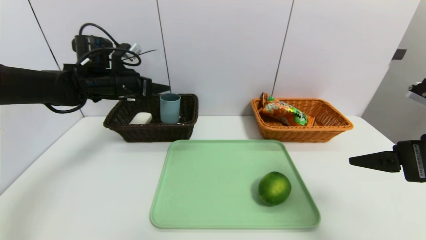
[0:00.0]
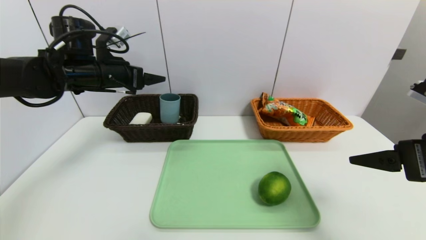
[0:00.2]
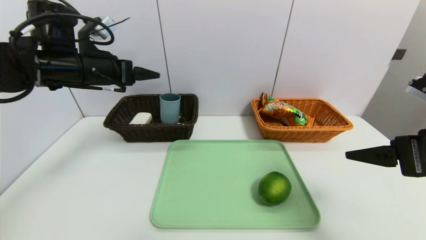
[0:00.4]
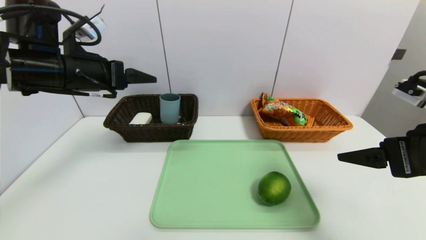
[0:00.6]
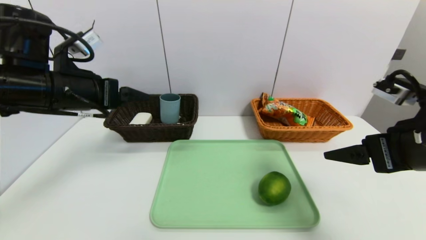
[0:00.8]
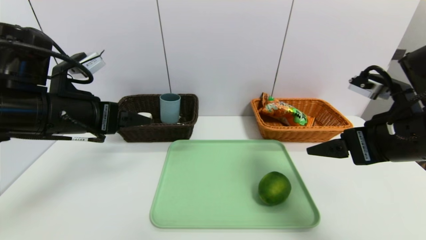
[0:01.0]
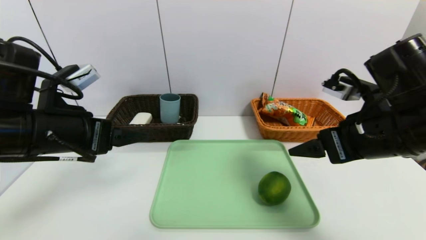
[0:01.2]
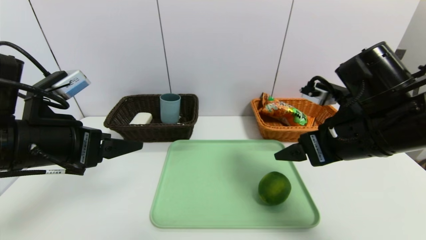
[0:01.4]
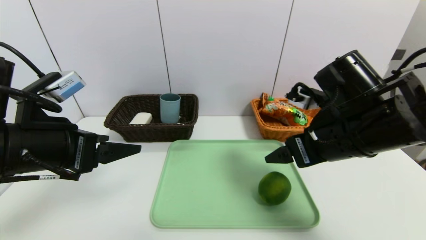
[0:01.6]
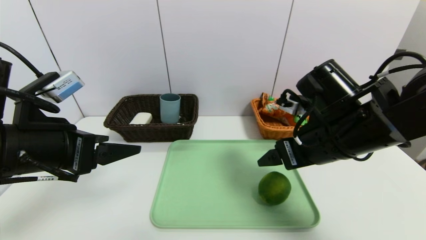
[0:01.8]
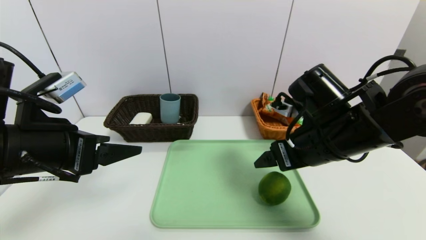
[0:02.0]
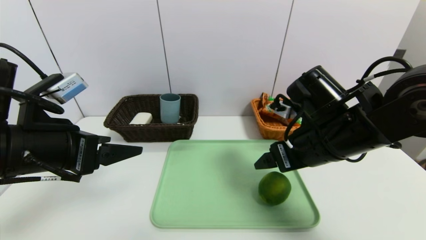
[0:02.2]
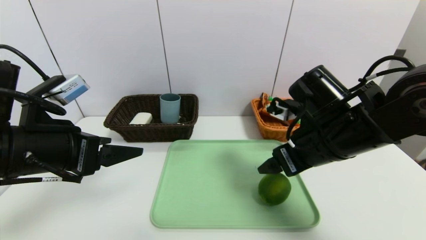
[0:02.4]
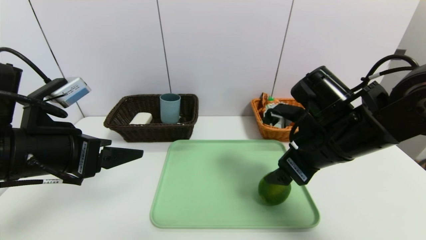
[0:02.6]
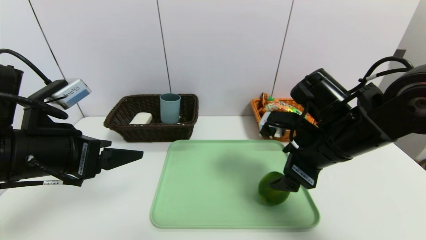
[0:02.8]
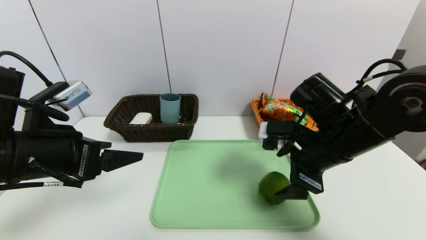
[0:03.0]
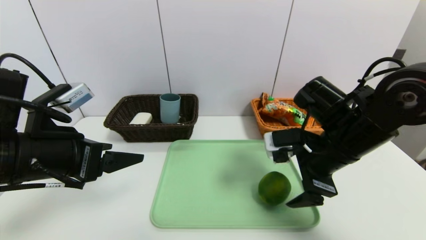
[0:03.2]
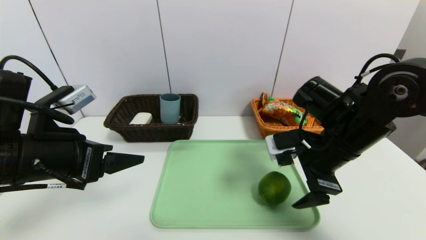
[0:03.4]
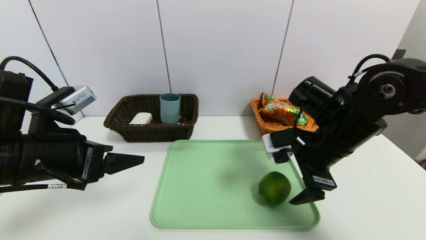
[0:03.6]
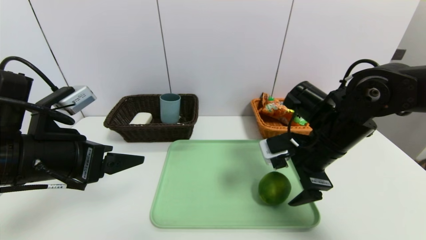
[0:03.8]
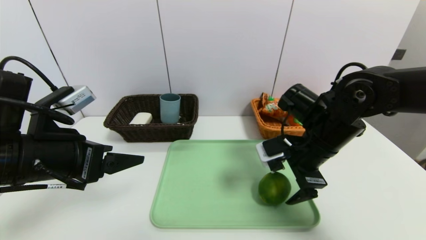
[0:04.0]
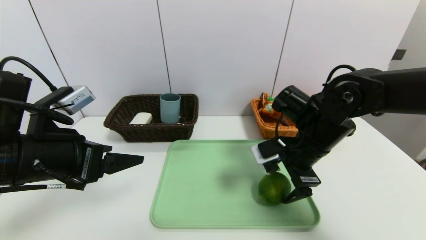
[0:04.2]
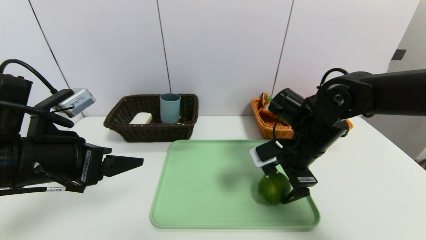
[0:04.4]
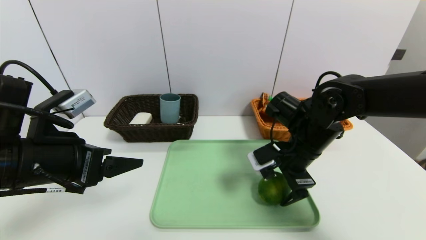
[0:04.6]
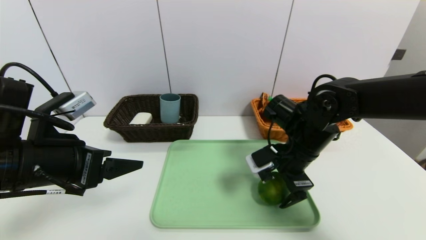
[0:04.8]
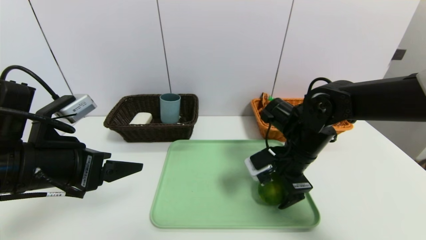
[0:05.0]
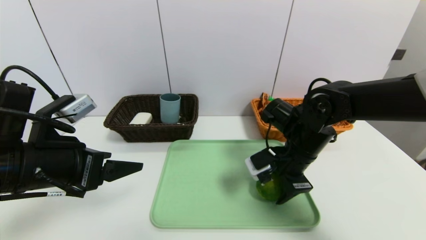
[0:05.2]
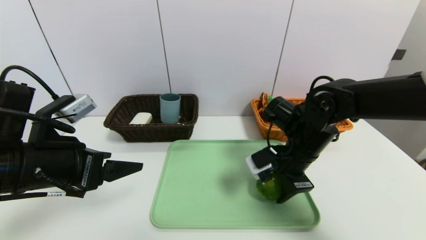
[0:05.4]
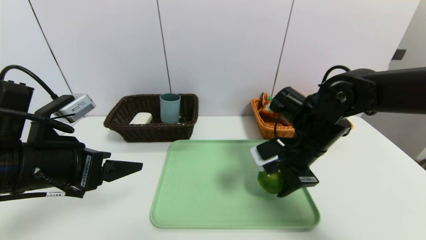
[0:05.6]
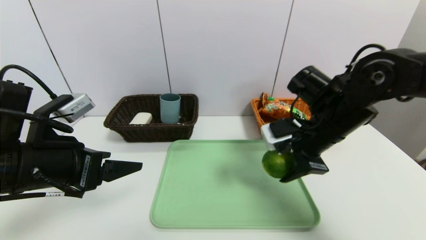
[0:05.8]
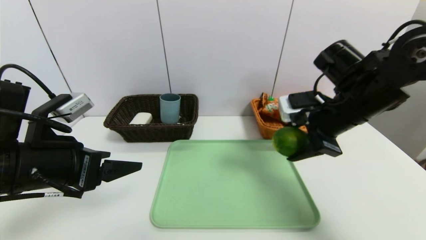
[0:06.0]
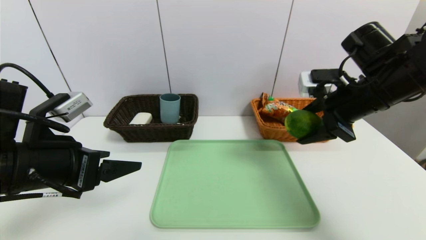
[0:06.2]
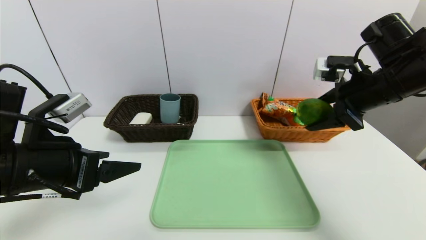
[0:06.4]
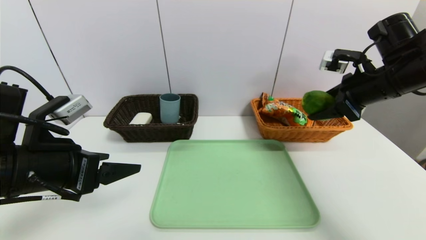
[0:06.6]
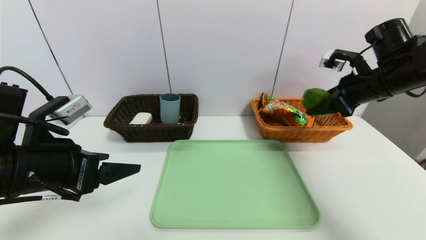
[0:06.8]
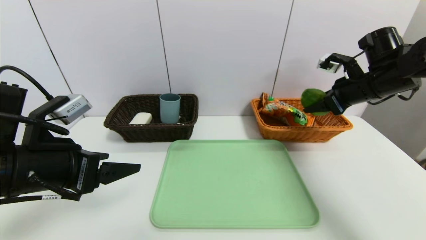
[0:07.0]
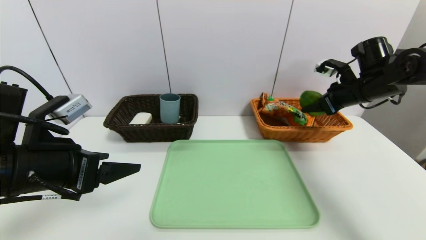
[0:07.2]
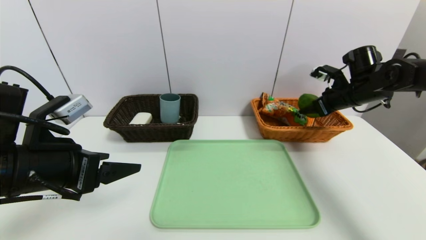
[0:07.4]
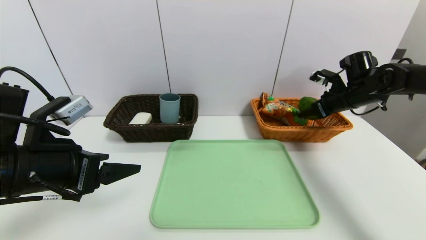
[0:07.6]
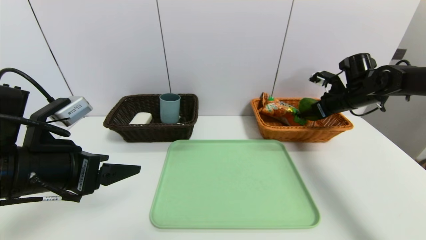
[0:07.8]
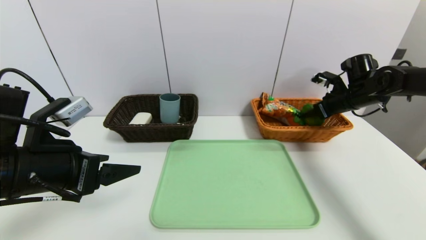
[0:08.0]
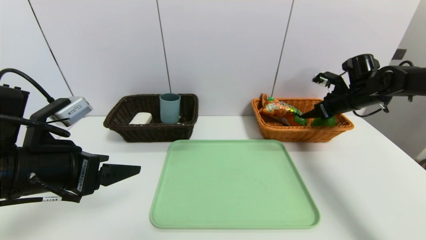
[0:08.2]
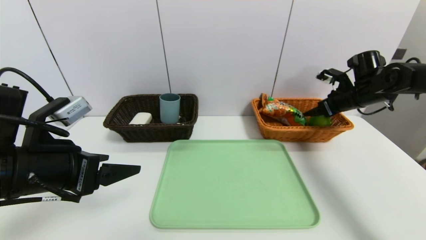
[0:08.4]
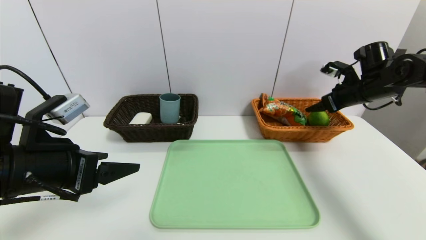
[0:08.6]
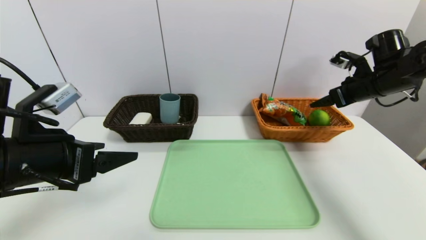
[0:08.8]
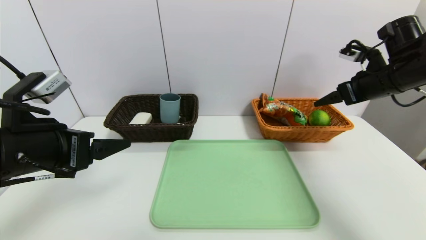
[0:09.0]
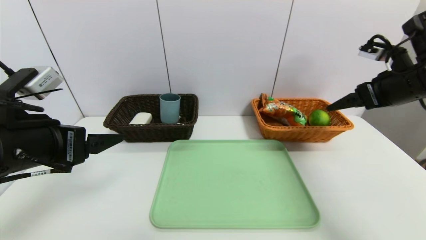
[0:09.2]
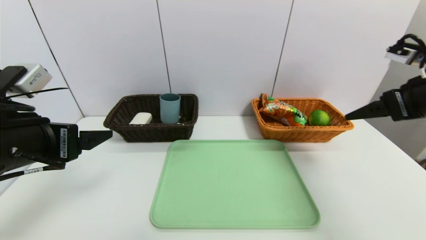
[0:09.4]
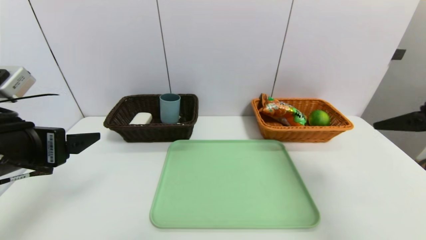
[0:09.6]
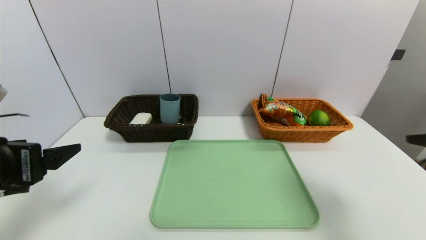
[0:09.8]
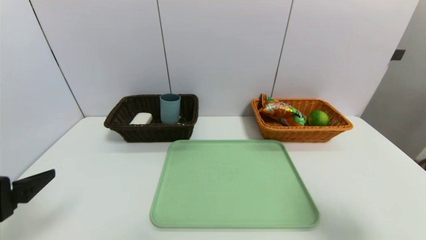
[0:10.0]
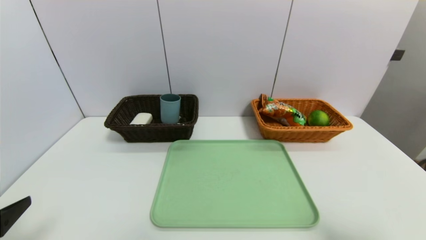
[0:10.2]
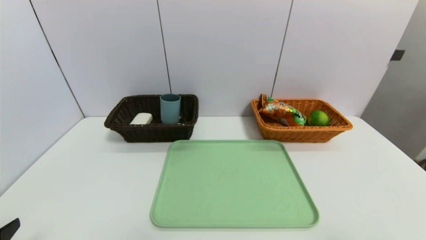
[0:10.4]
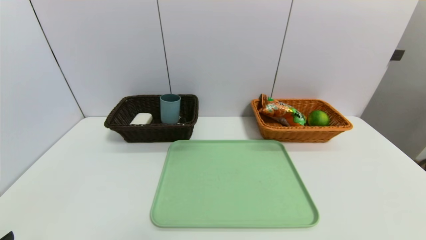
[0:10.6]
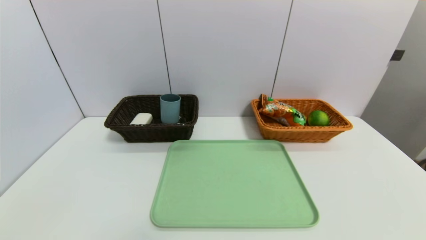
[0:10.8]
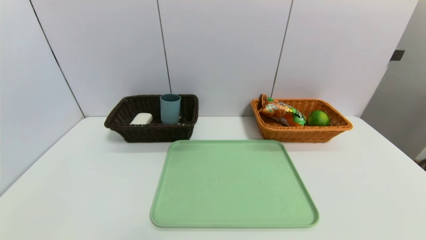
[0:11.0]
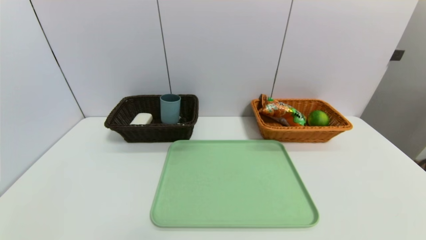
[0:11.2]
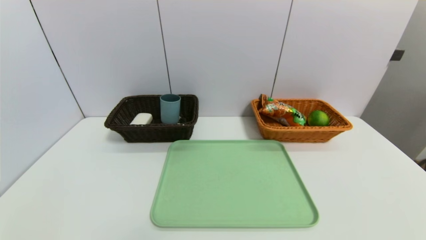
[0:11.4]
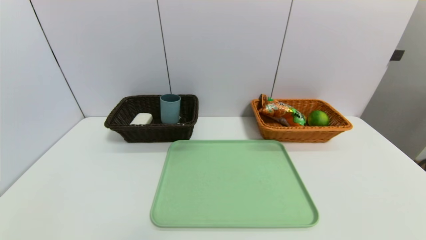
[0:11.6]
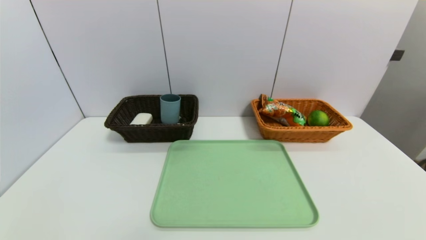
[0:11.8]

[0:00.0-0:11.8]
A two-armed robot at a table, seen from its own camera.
Task of the whole recording: place the food in the right basket with the right gripper, and place the non food items in the left basket with the left gripper.
Step, 0:00.2 to 0:08.6: Grasp the lime and put it in the right basket.
0:00.0 to 0:01.4: The right gripper is displaced to the left and forward by roughly 10 cm; the left gripper travels backward by approximately 20 cm.
0:01.4 to 0:03.0: The right gripper changes place by about 5 cm.
0:03.0 to 0:04.4: The right gripper changes place by roughly 5 cm.
0:04.4 to 0:06.0: The right gripper travels upward and to the right by approximately 10 cm, and closes its fingers.
0:06.0 to 0:07.4: The right gripper shifts approximately 15 cm forward and to the right.
0:07.4 to 0:08.8: The right gripper moves roughly 5 cm, and opens up.
0:08.8 to 0:10.4: The left gripper shifts about 15 cm backward, to the left and downward; the right gripper heads backward, covering about 40 cm.

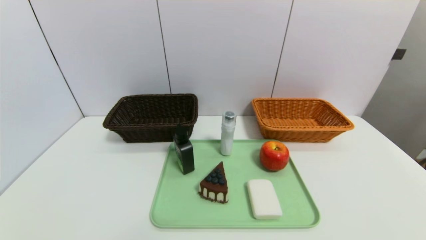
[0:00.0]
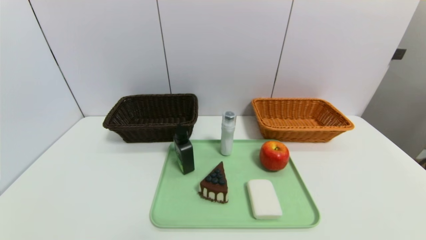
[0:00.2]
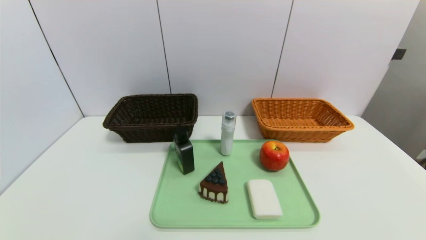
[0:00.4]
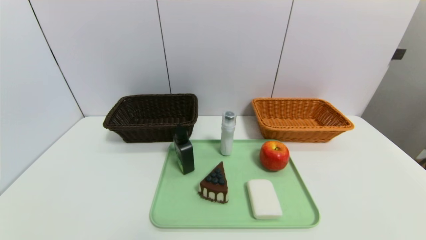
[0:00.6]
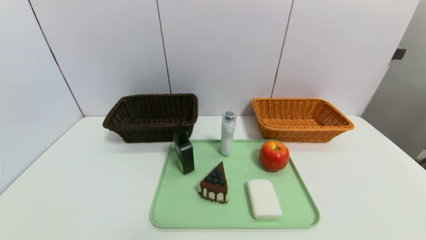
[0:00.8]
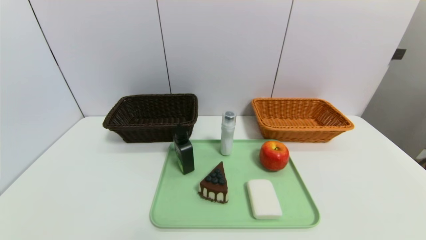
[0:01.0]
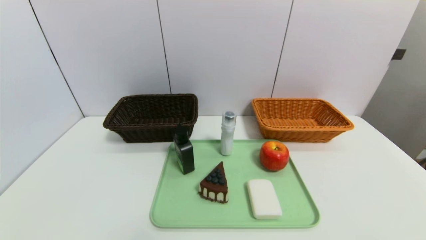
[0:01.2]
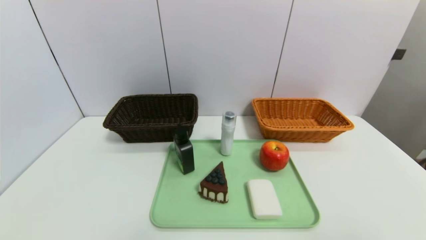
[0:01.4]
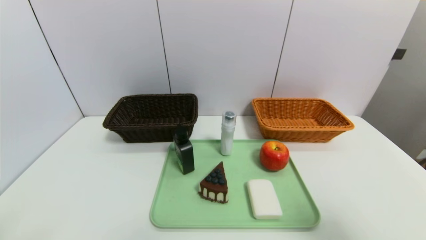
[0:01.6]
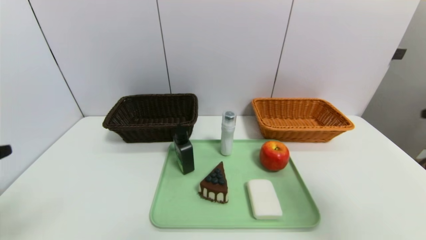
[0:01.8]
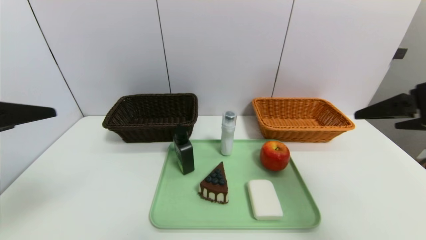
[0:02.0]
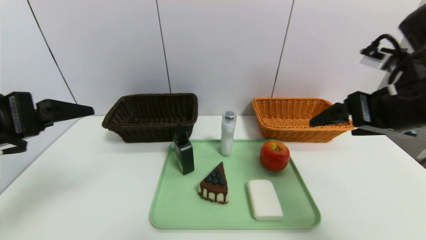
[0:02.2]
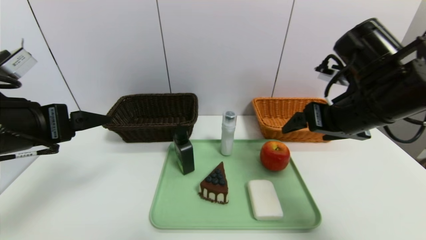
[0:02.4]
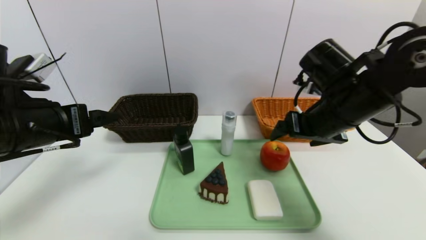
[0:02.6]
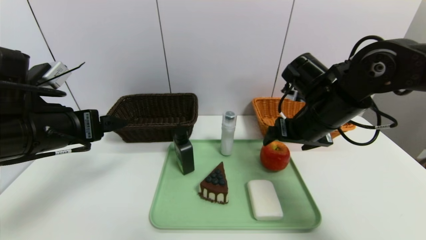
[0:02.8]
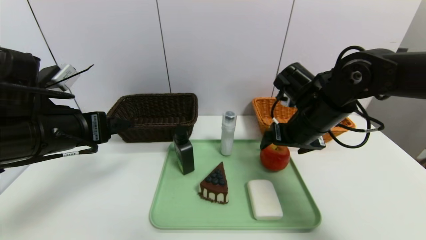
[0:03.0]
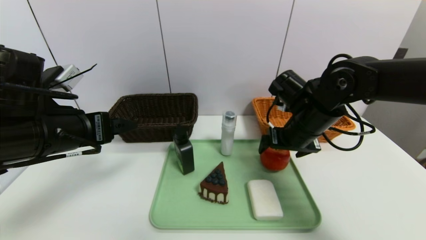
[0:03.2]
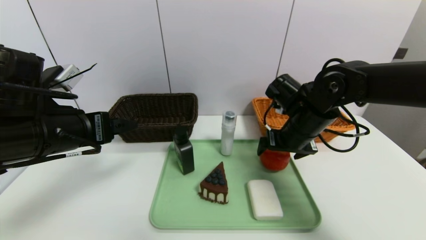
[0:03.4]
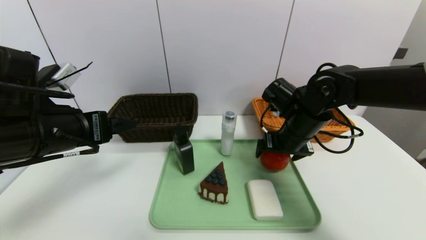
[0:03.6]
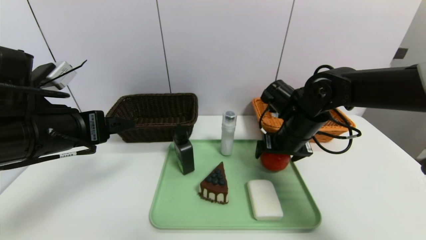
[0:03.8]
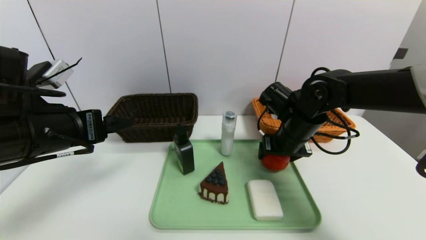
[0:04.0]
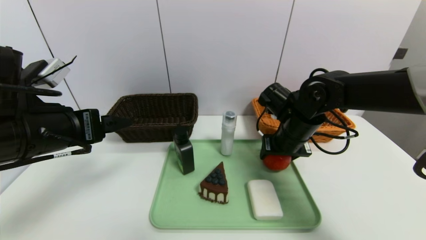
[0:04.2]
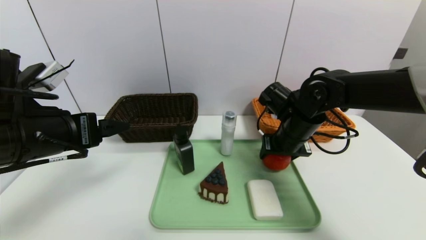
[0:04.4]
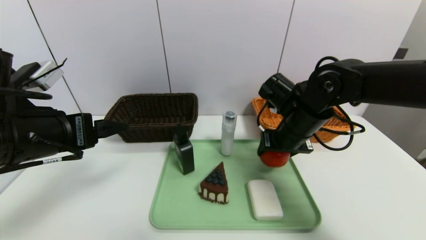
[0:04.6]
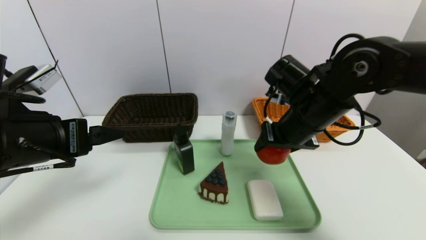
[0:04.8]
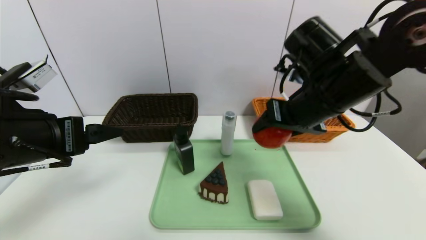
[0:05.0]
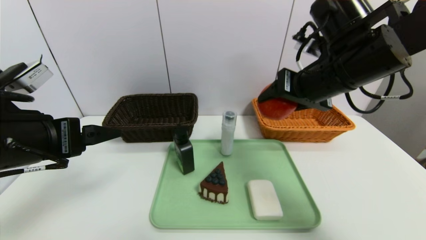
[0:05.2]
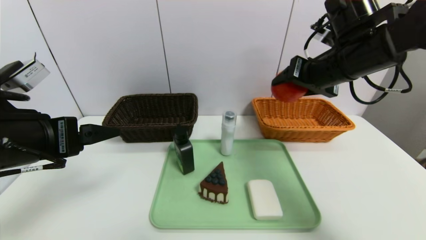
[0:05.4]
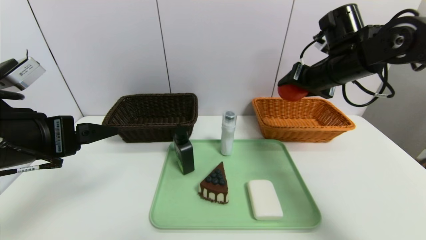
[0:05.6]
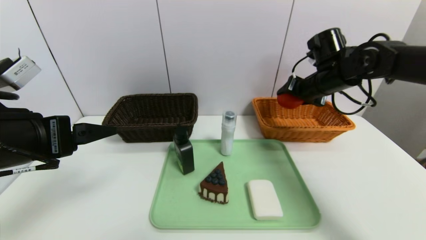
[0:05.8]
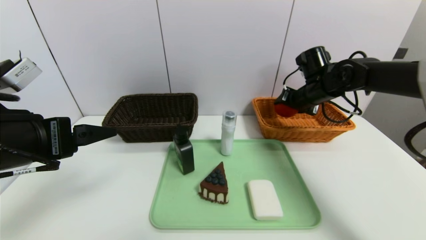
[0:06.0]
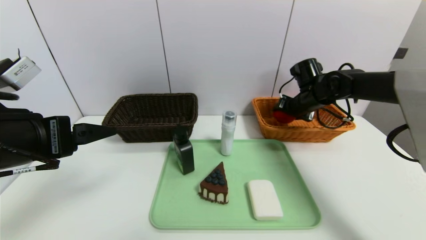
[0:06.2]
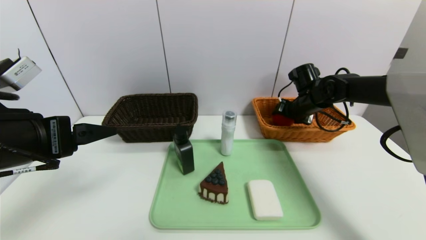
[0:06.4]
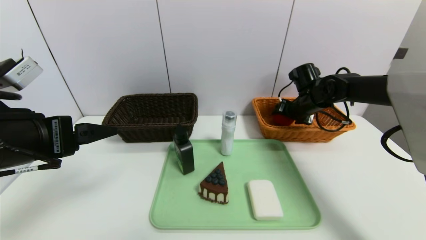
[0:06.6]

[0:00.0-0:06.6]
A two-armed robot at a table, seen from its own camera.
Task of the whole recording: place the food in the right basket with the right gripper, and place the non food items in the left basket with the left gripper.
0:00.0 to 0:01.6: The right gripper travels upward by some 25 cm.
0:01.6 to 0:03.2: The left gripper shifts some 20 cm forward. The right gripper moves forward, to the left and downward, roughly 35 cm.
0:03.2 to 0:05.0: The right gripper goes approximately 10 cm upward, and closes.
0:05.0 to 0:06.6: The right gripper moves forward, downward and to the right, about 25 cm.
